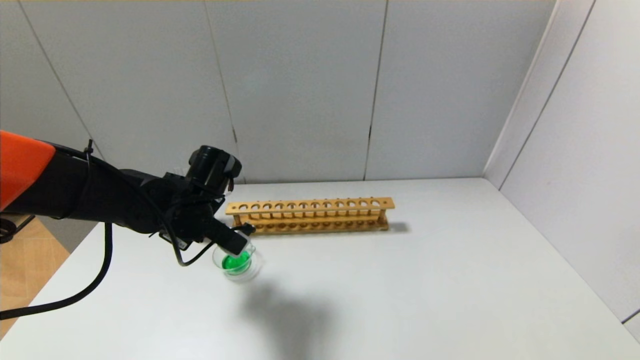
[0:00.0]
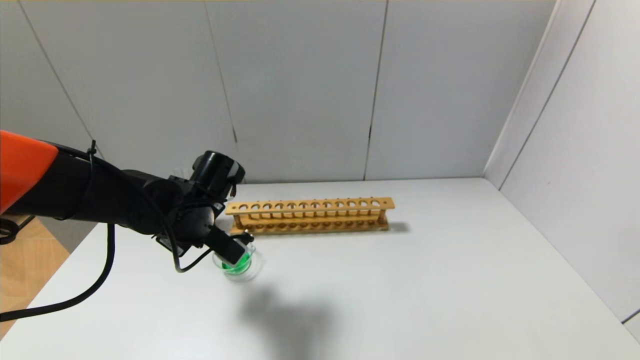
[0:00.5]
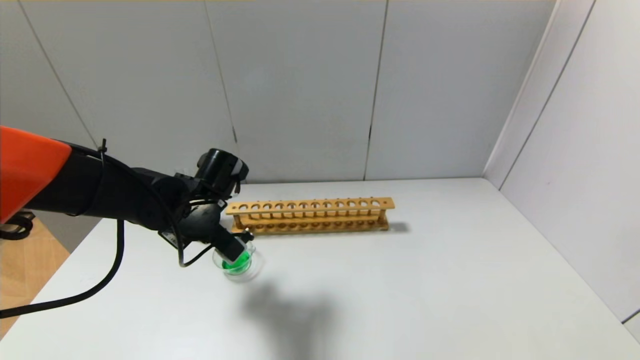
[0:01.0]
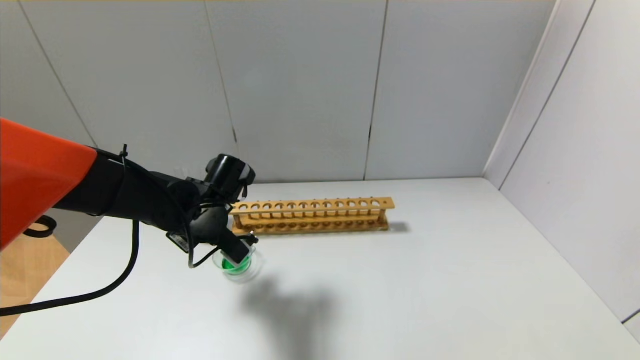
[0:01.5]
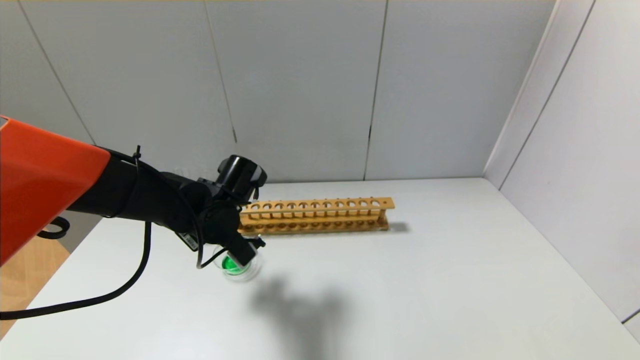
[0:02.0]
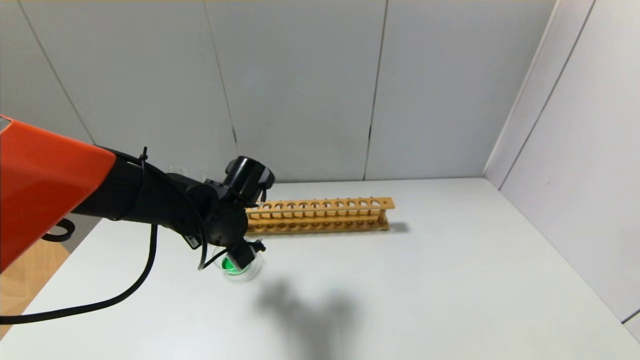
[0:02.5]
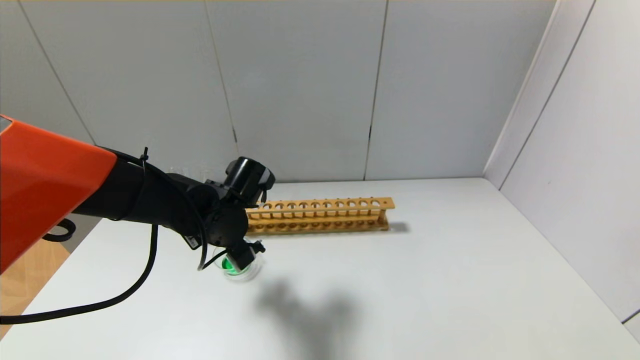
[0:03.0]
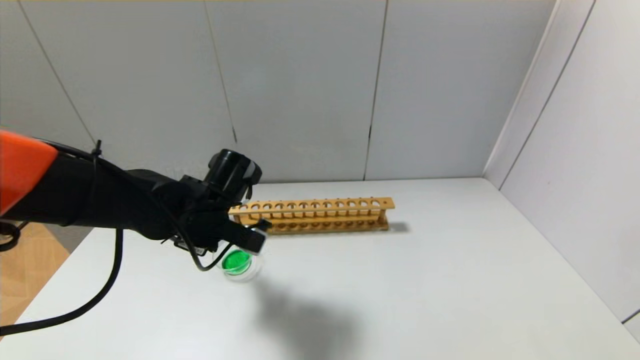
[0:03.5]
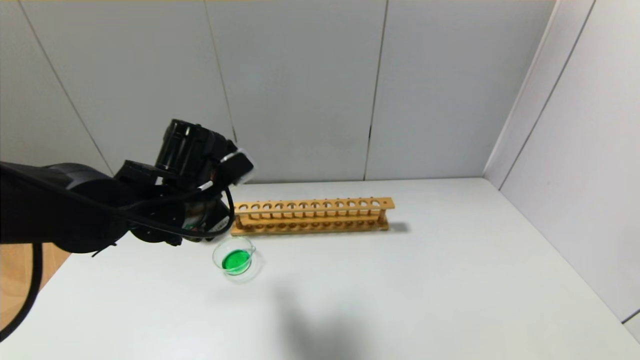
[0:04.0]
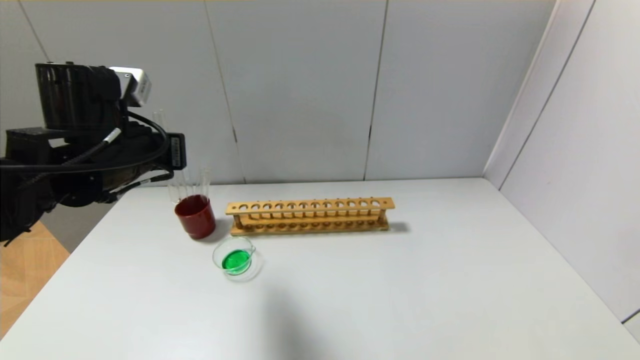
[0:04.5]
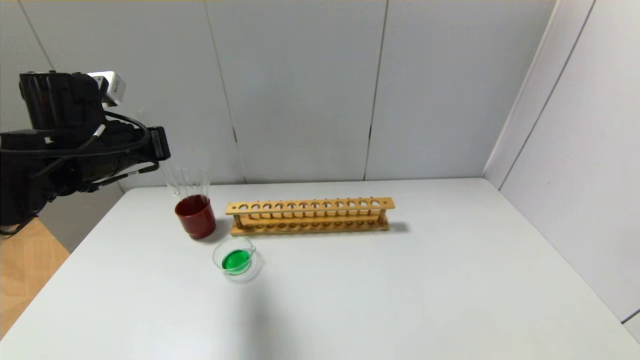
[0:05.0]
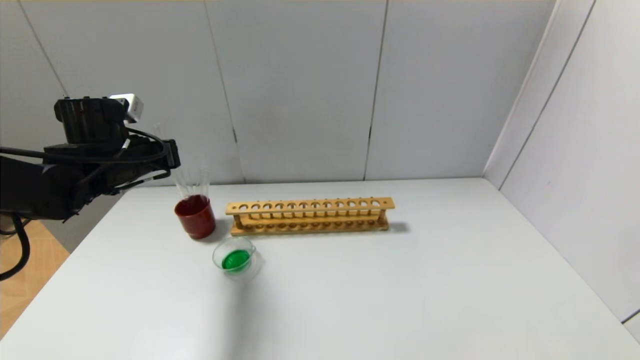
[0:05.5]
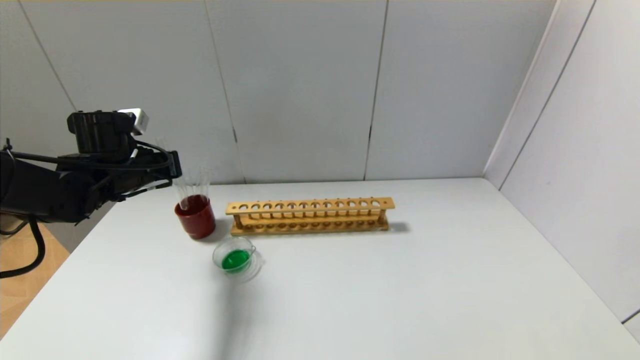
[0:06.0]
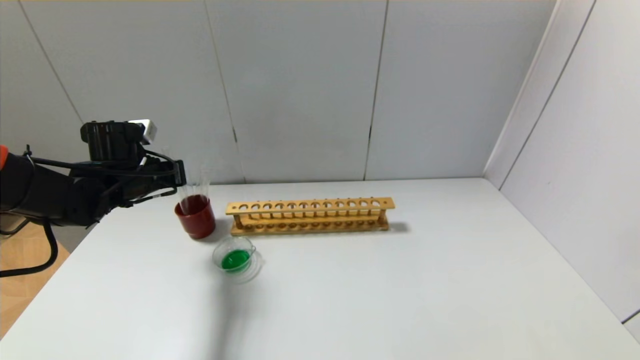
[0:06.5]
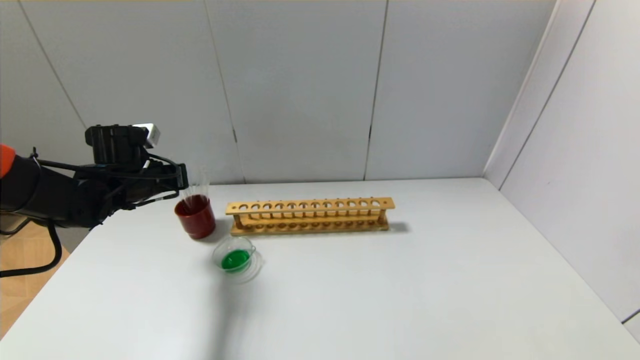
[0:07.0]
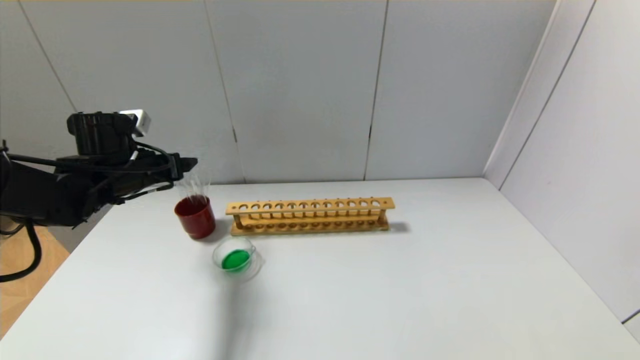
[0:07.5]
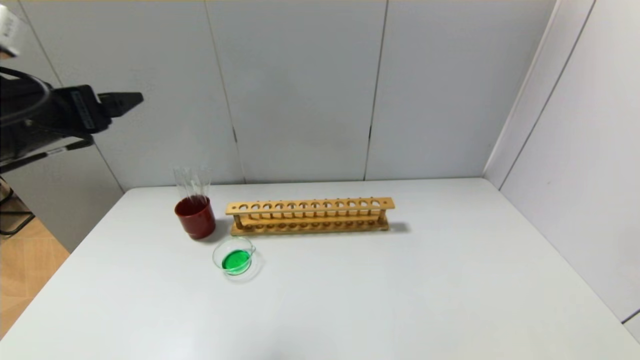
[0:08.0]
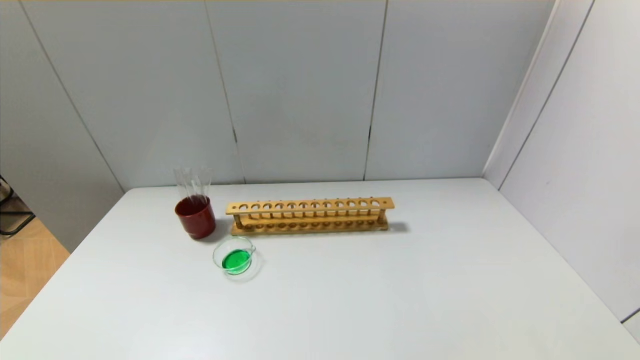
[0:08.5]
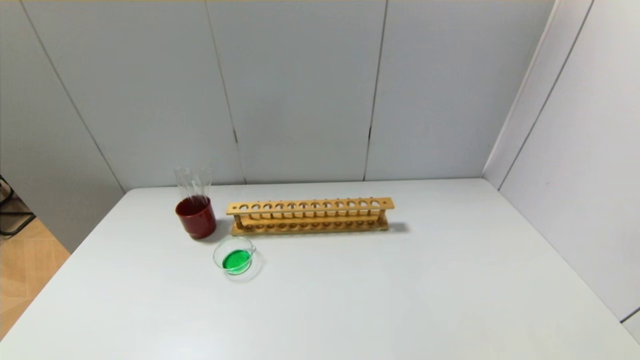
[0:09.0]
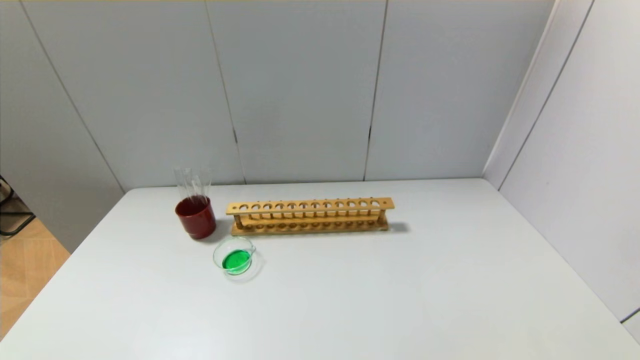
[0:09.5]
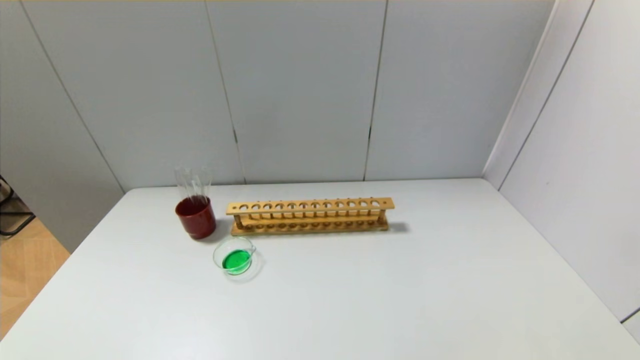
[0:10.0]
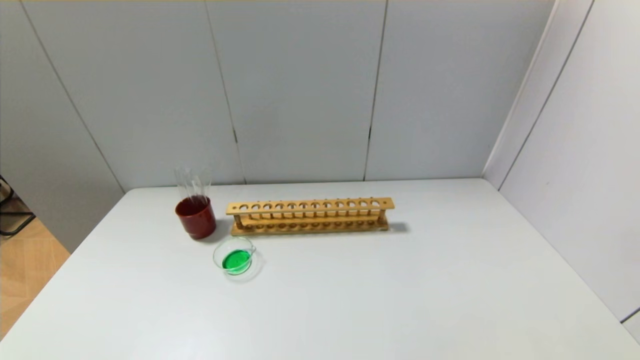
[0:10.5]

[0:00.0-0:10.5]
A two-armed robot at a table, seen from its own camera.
Step, 0:00.0 to 0:03.5: Pour the yellow reagent into the graduated cylinder with the left gripper.
Step, 0:04.0 to 0:07.0: Place the test tube into the brown cup with the left gripper.
0:00.0 to 0:02.0: The grippers move only a little.
0:02.0 to 0:04.0: The left gripper heads upward and backward, covering about 10 cm.
0:04.0 to 0:06.5: The left gripper moves to the left and forward, about 15 cm.
0:06.5 to 0:08.5: The left gripper moves backward and upward, about 40 cm, and opens up.
